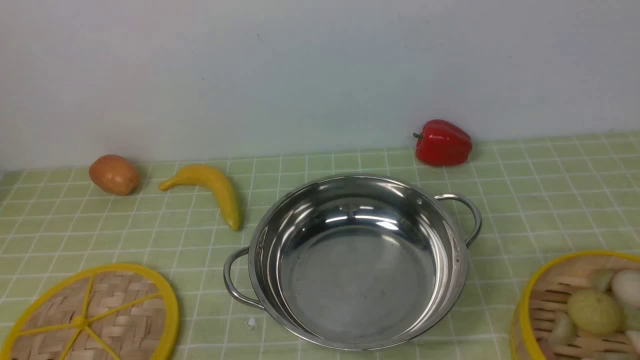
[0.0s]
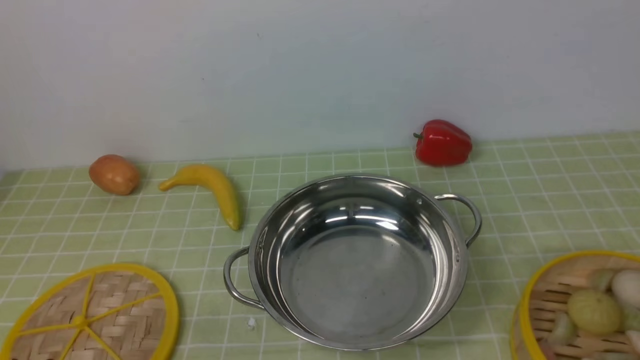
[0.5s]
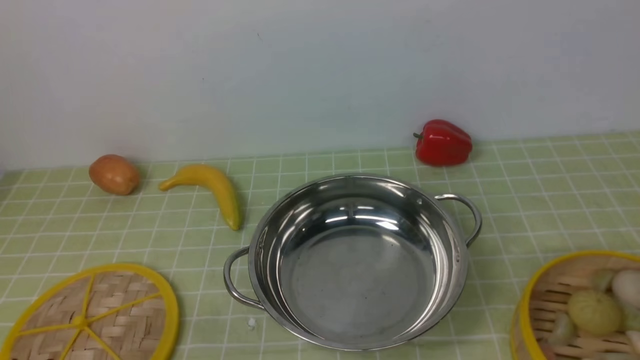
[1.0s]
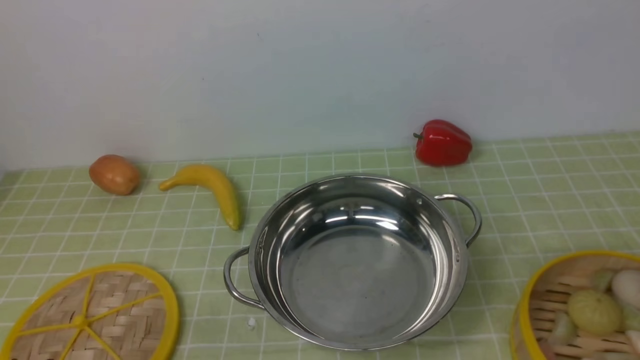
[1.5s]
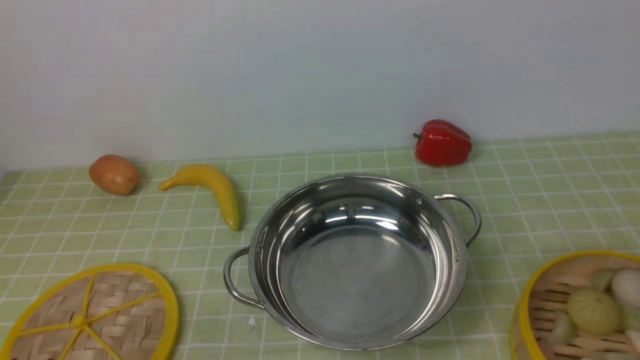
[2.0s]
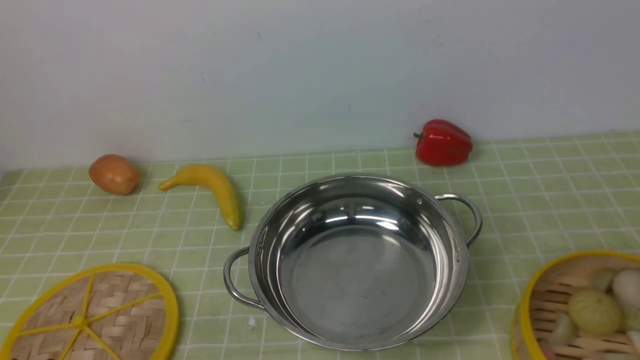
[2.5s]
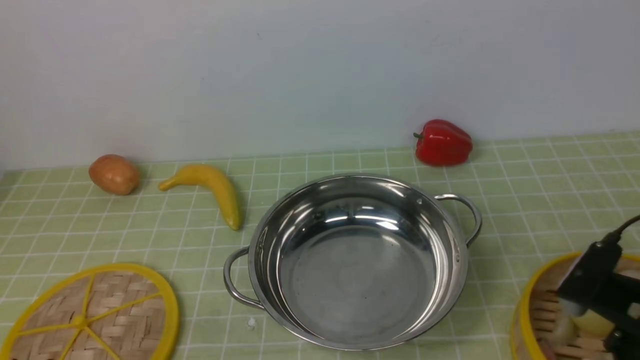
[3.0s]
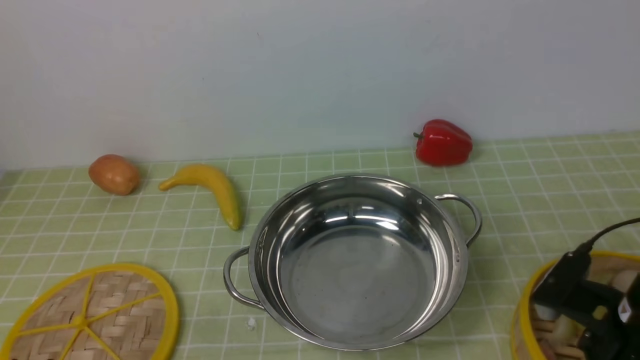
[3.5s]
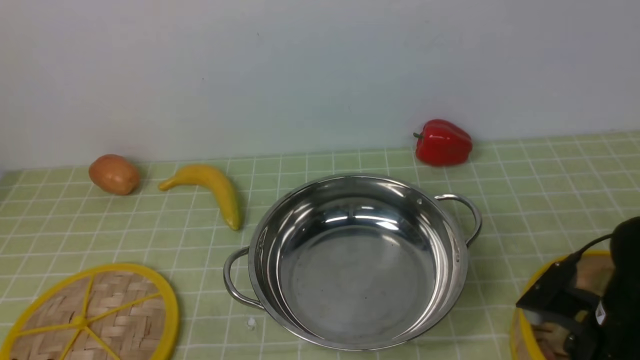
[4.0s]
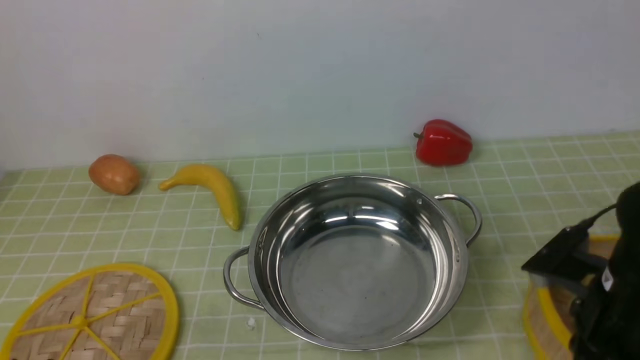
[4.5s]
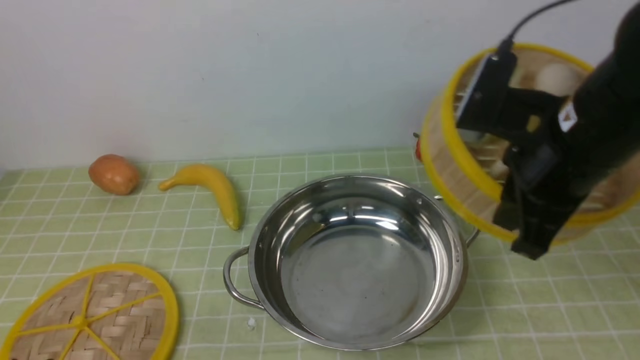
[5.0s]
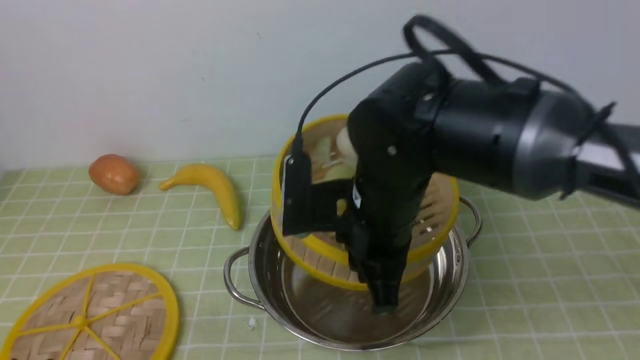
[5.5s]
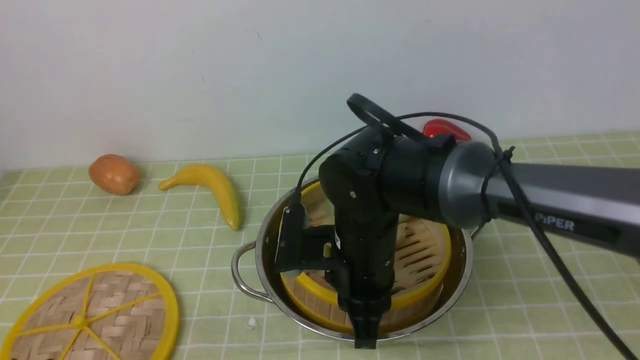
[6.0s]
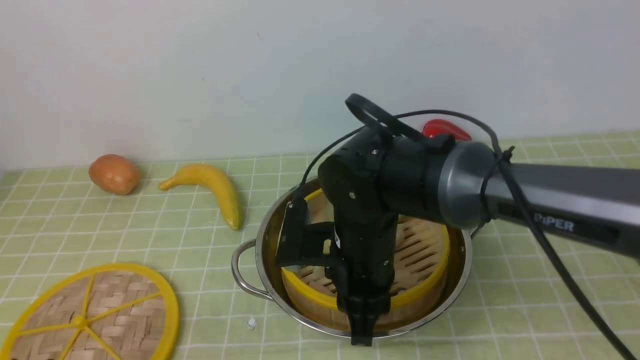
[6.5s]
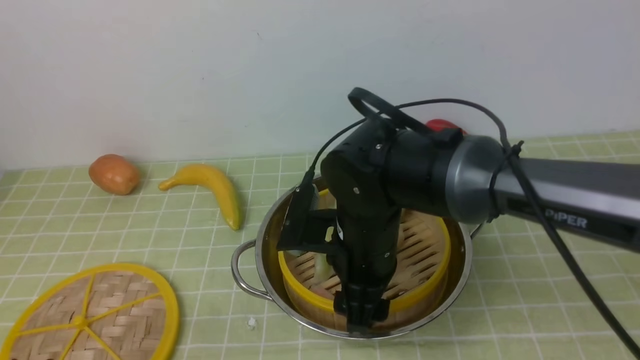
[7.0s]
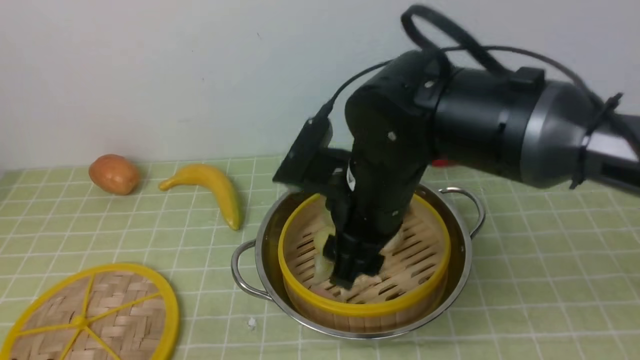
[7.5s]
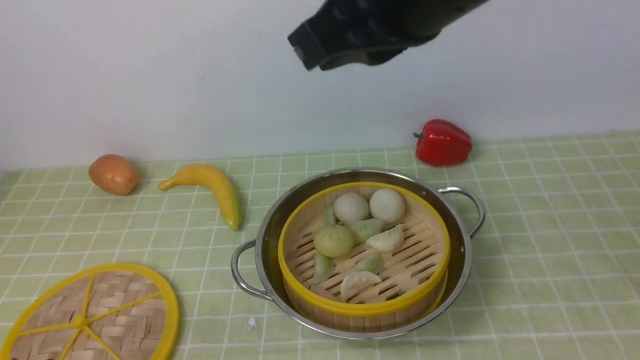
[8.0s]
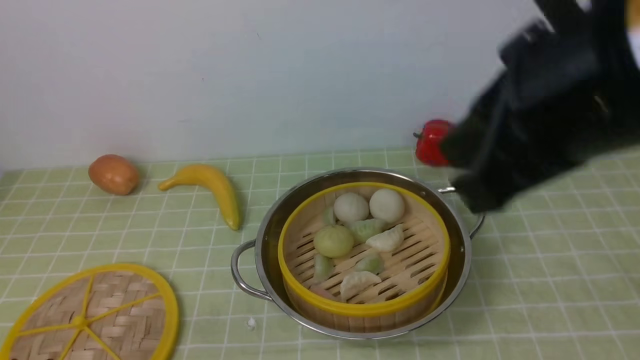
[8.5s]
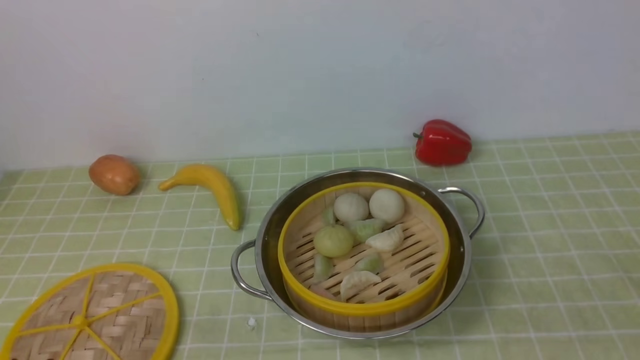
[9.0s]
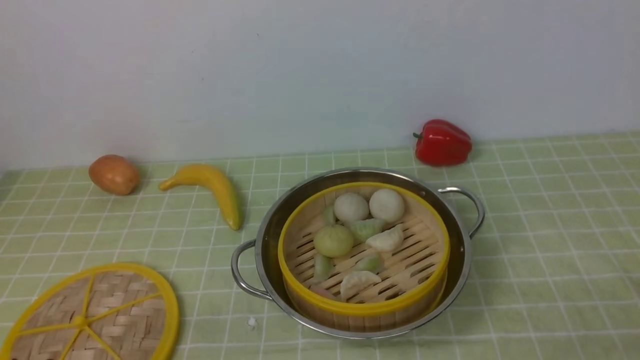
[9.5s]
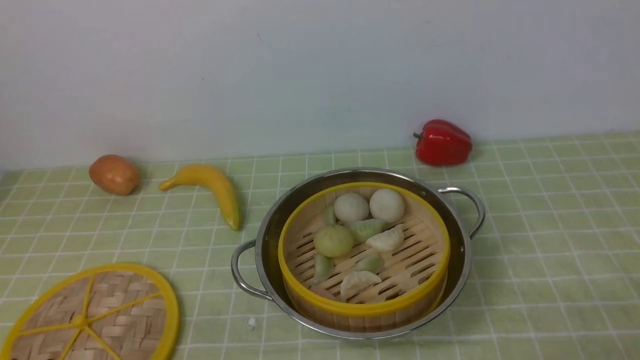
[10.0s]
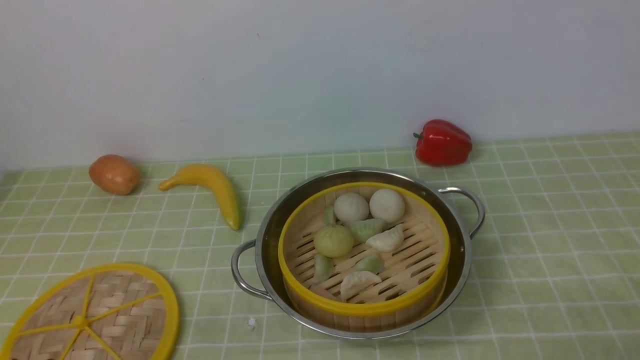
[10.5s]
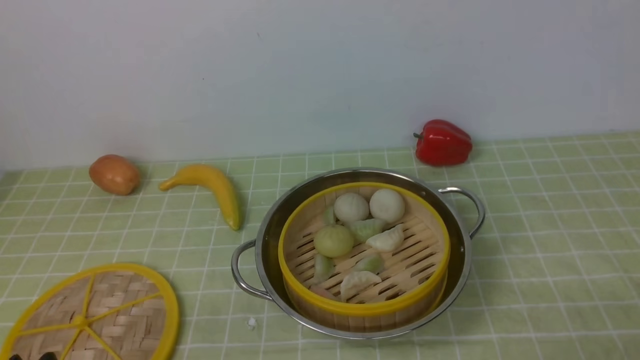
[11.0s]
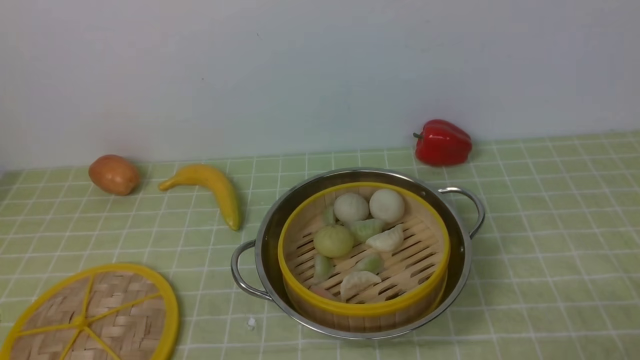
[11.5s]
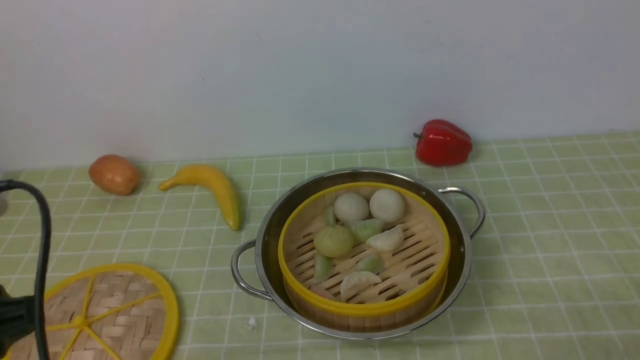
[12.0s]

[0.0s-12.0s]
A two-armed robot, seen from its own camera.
Task of the whole recording: place the steamer in the pot on the green tablecloth, and put the lid on the steamer.
Step, 0.0s to 5.0s: use the right arm to lift the steamer closest to it.
Step, 5.5s to 7.5s: use the right arm to put the steamer into the iron steamer pot in the middle.
2.0s to 4.0s: The right gripper shifts approximately 25 cm forward, downward and to the left.
4.0s to 6.0s: The right gripper moves to the left and forward, roughly 25 cm, and closes up.
6.0s to 8.0s: The right gripper travels upward by approximately 25 cm, and opens, then closes once more.
8.0s to 10.0s: The right gripper heads downward, to the right and backward, covering some 40 cm.
10.0s to 12.0s: The left gripper travels upward and forward by about 15 cm.

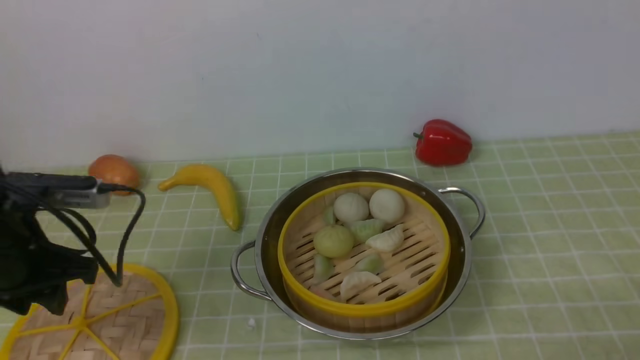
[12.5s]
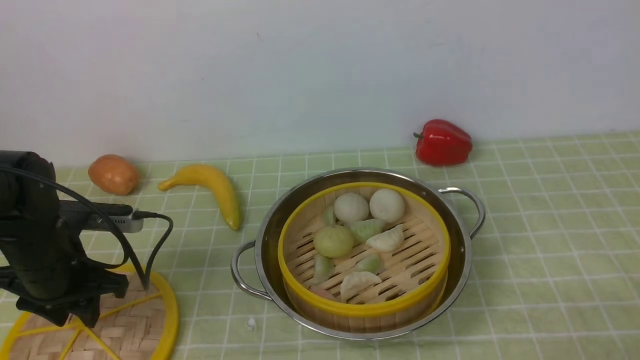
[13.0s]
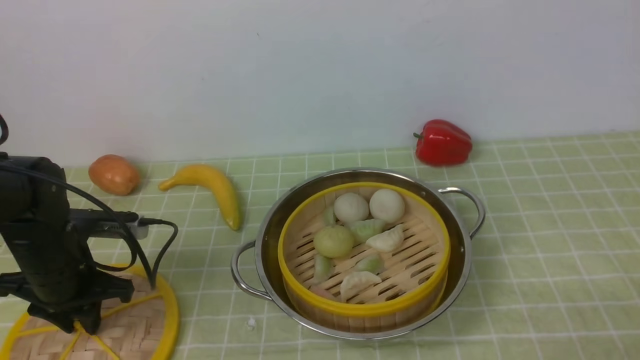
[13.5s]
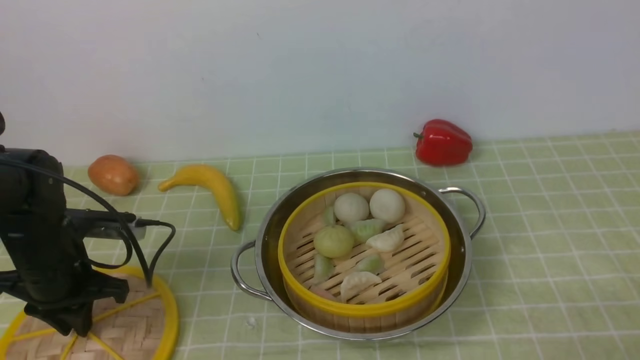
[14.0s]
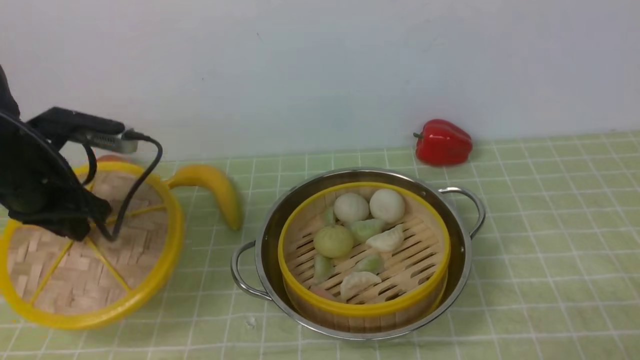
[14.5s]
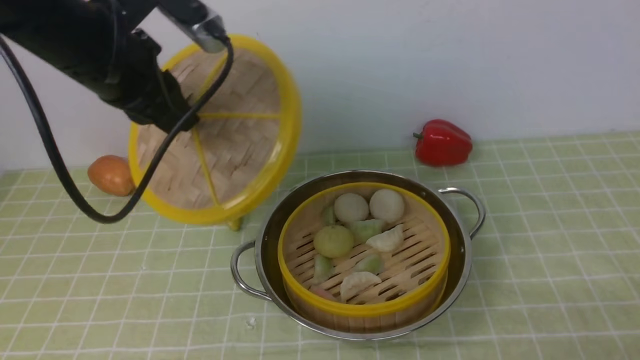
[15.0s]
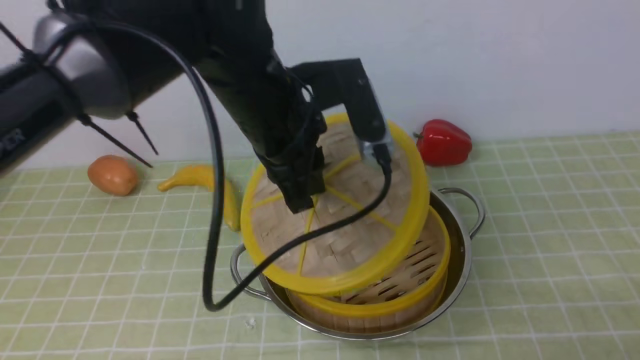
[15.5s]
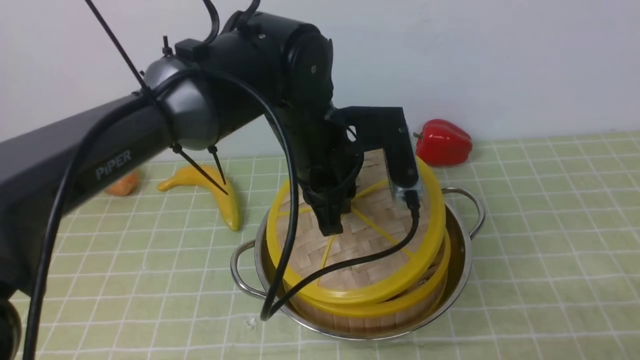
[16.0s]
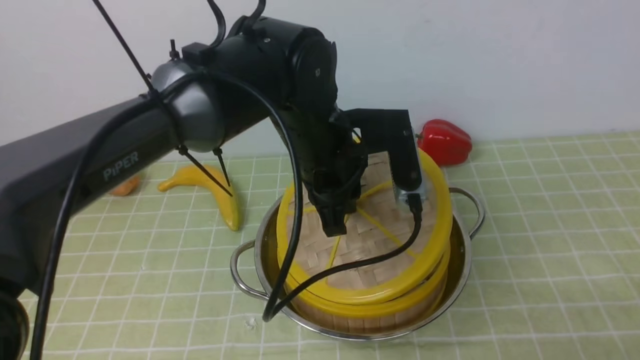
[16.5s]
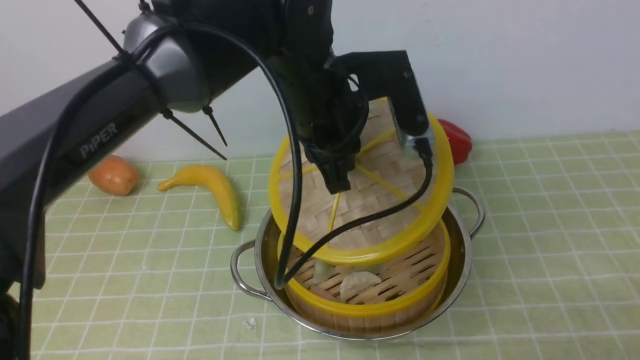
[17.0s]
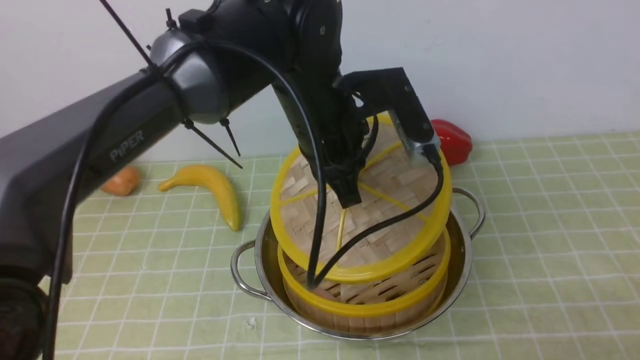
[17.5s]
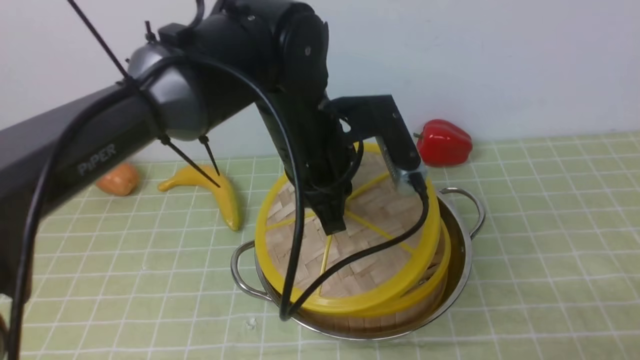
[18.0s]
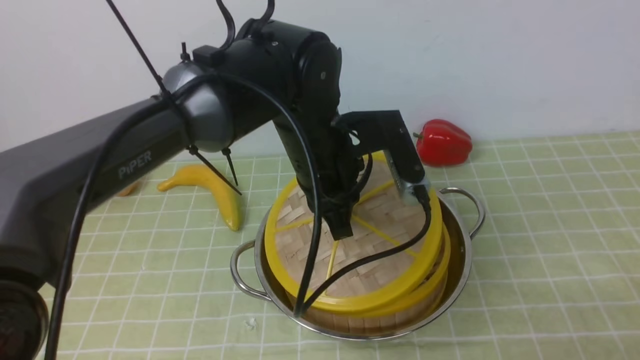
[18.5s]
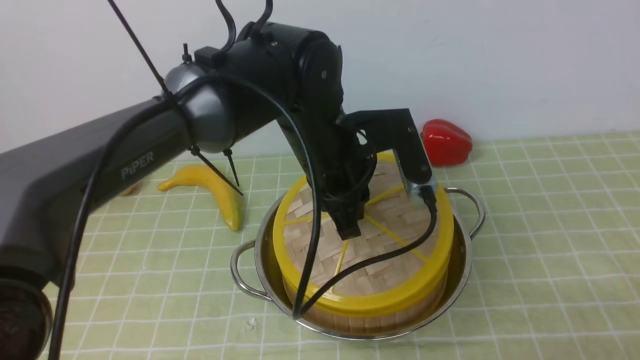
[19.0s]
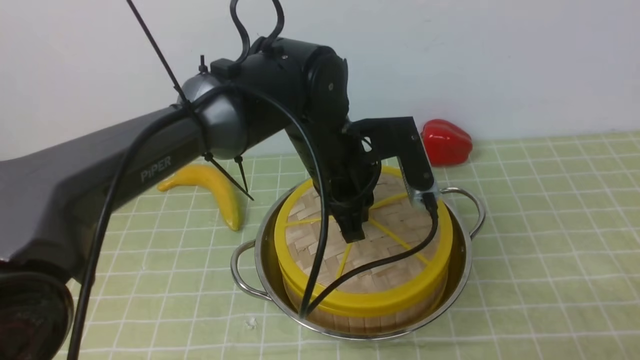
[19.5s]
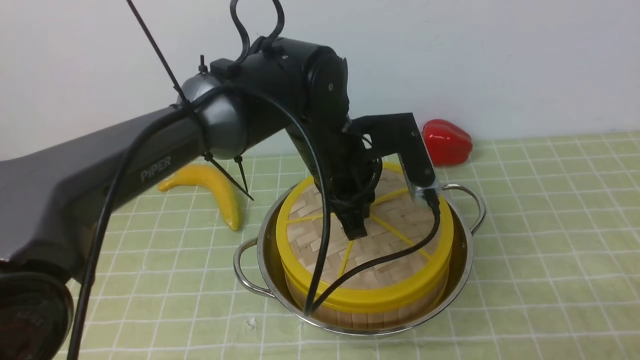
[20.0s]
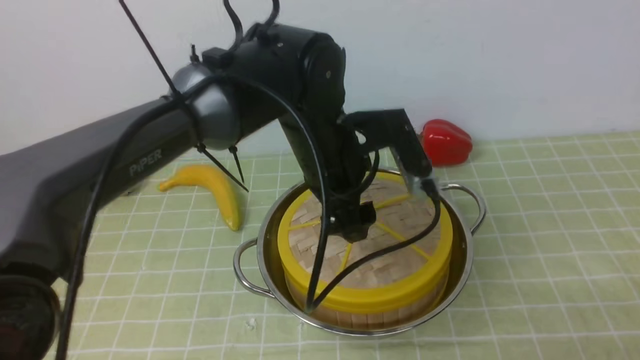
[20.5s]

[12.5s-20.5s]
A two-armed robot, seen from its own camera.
Task of the whole recording: place the steamer in the pot on the green tablecloth, and put the lid on the steamer.
Step, 12.5s to 14.5s: use the left arm to lift the lid of the steamer.
12.5s to 14.5s: The left gripper heads forward, covering about 10 cm, travels downward and back again, approximately 10 cm each way, and closes.
14.5s to 16.5s: The left gripper moves to the right, roughly 30 cm.
16.5s to 18.5s: The grippers move only a little.
18.5s to 20.5s: The left gripper opens.
